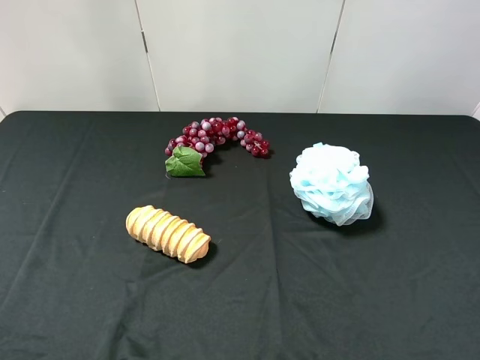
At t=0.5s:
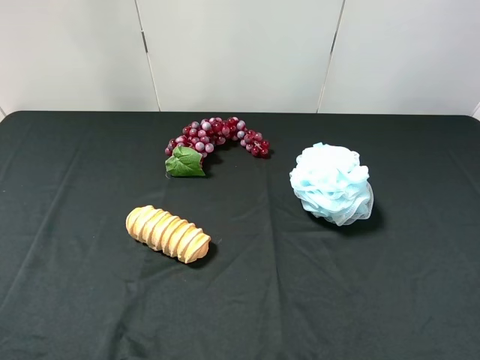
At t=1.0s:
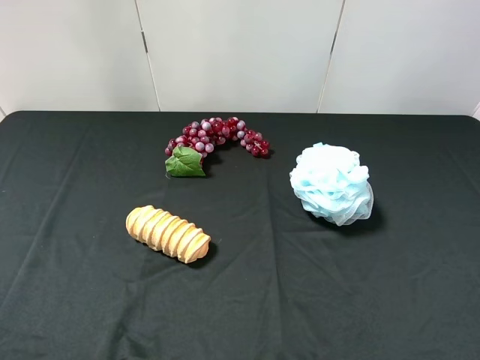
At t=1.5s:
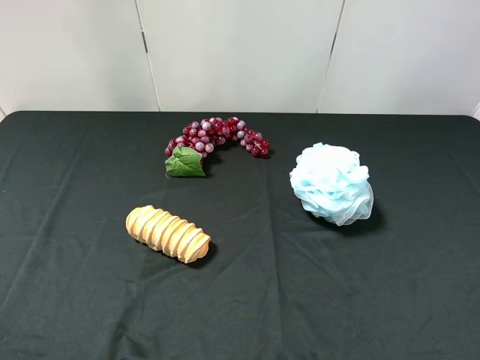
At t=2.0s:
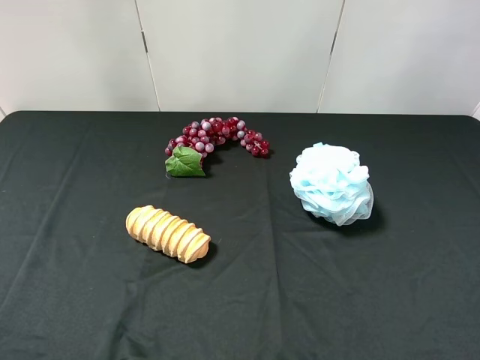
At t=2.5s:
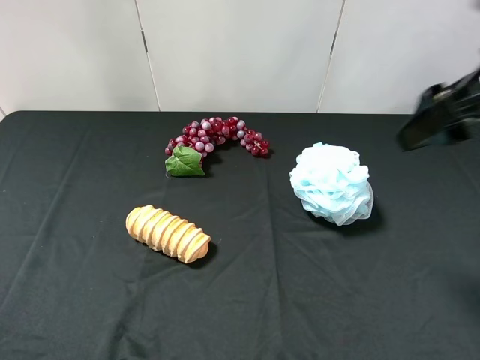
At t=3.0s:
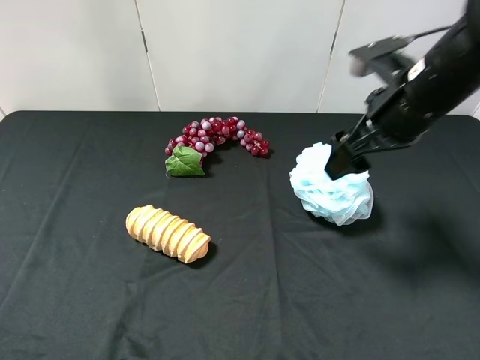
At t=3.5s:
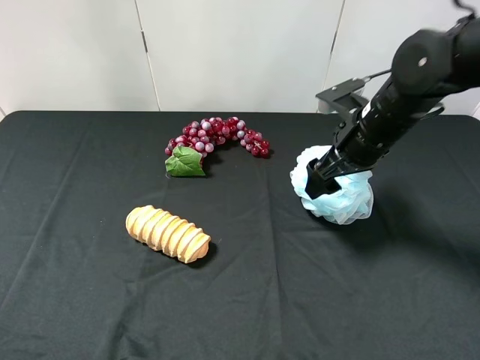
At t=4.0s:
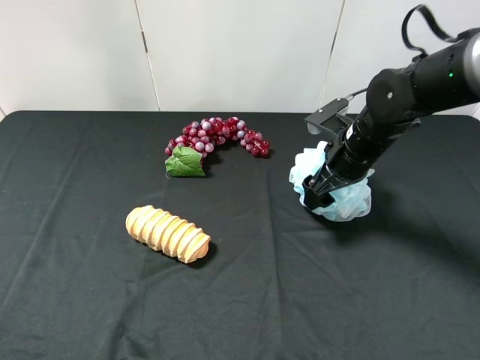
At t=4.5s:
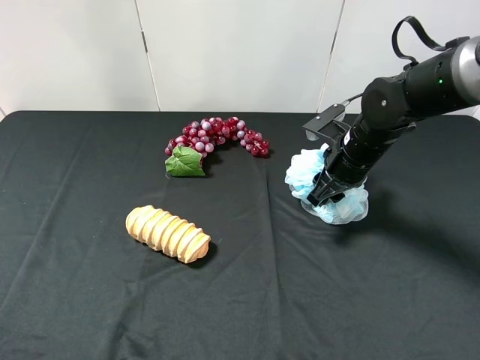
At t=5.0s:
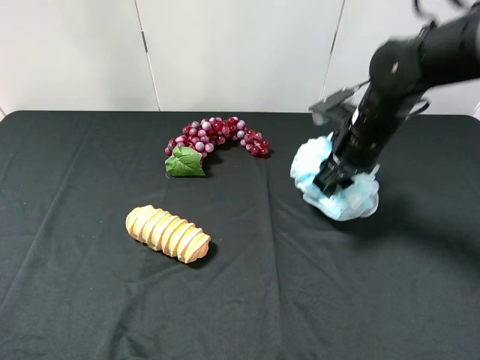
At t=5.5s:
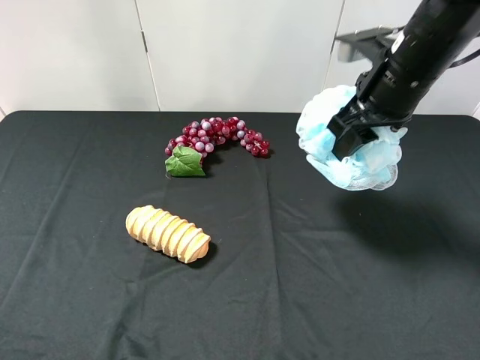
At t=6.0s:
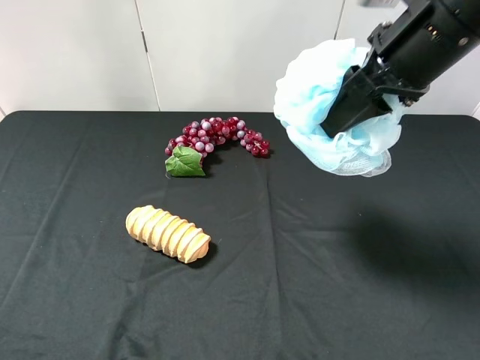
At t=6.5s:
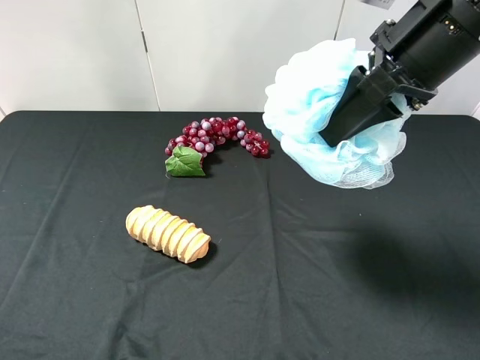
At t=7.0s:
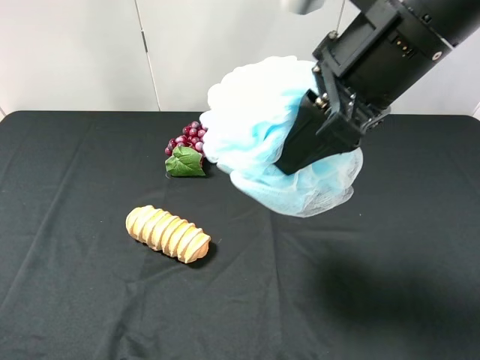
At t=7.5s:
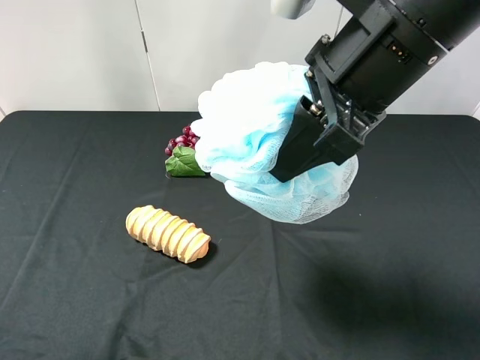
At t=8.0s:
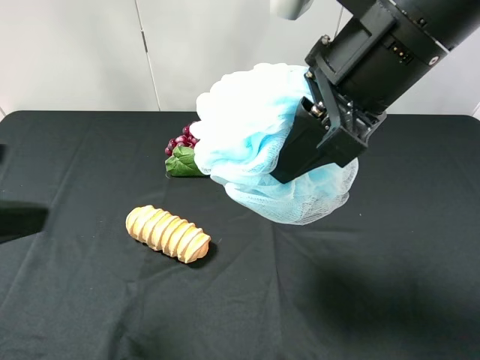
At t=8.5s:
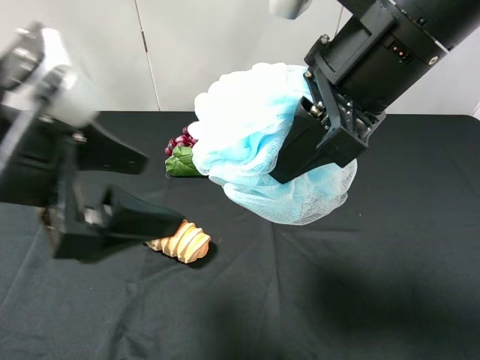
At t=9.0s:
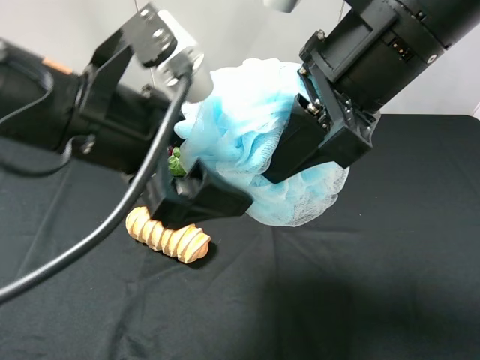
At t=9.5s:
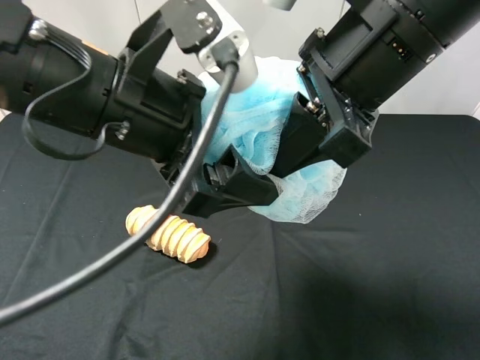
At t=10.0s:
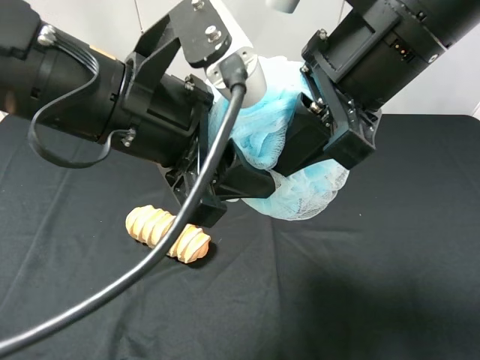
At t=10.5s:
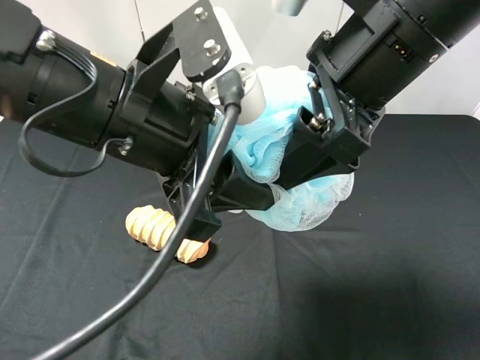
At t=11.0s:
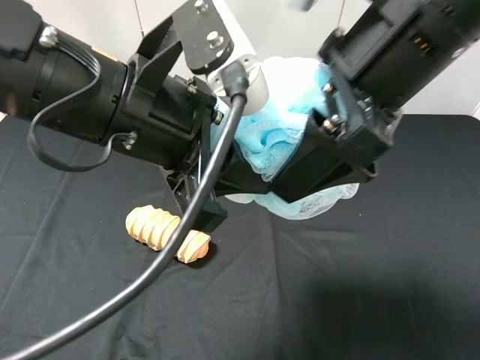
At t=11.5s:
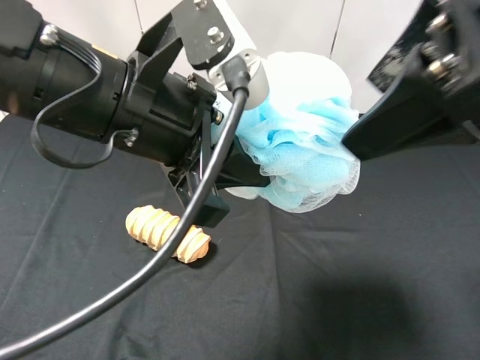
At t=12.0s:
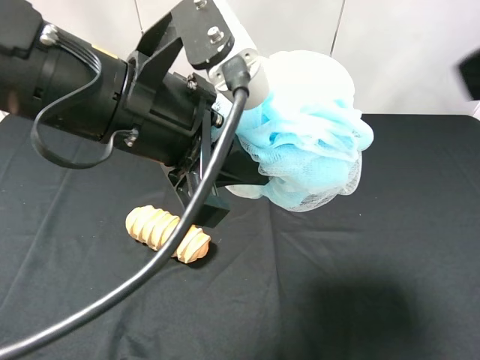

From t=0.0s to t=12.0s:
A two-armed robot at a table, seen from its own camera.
Task of the whole recording: use the right gripper to pick up the item and transfer it from the right gripper to the left gripper.
Step, from t=0.0s to t=4.5s: Use the right gripper to grab the shower sphere on the right side of the table.
Step, from t=5.0s to t=11.5s: Pass the shower sphere to the left gripper.
From t=2.0s to t=4.0s: The right gripper heads downward, forward and to the left, covering about 35 cm.
From t=4.0s to t=6.0s: The right gripper shifts roughly 20 cm upward, and closes.
From t=6.0s to t=8.0s: The right gripper is displaced to the left and backward by some 10 cm, while the left gripper moves forward and to the right, approximately 15 cm.
From t=8.0s to t=10.0s: The left gripper heads to the right and forward, covering about 20 cm, and closes up.
From t=10.0s to t=12.0s: The right gripper goes roughly 20 cm to the right, backward and upward, and opens up.

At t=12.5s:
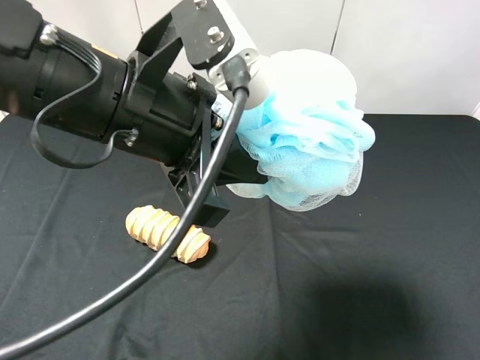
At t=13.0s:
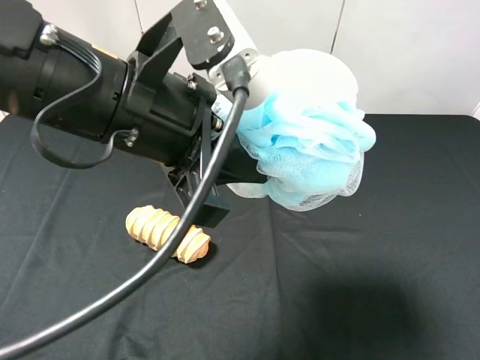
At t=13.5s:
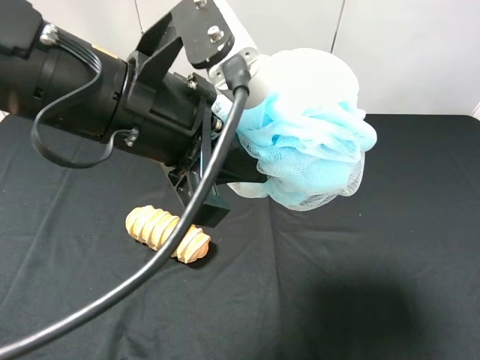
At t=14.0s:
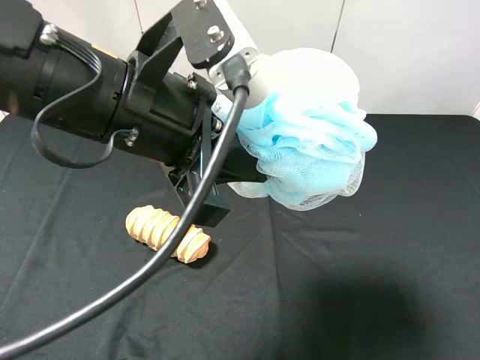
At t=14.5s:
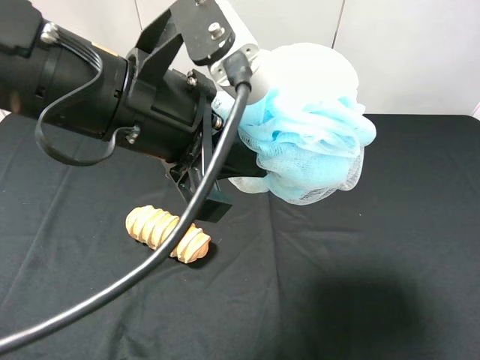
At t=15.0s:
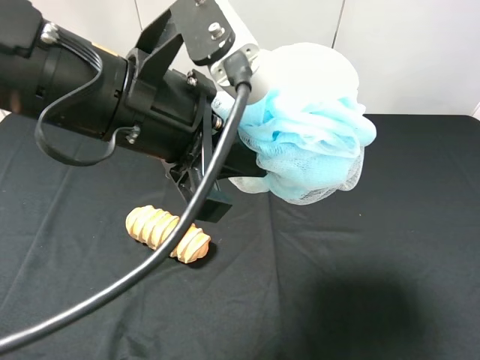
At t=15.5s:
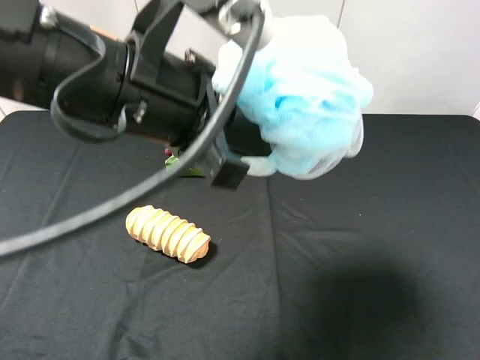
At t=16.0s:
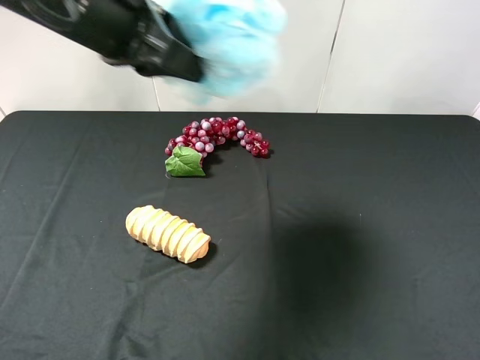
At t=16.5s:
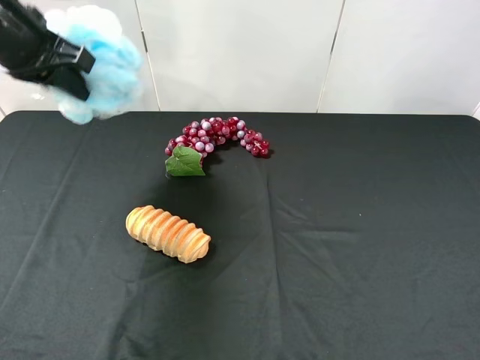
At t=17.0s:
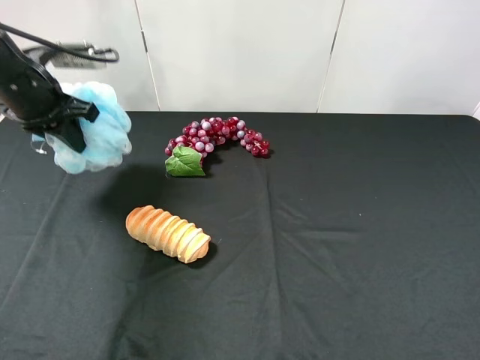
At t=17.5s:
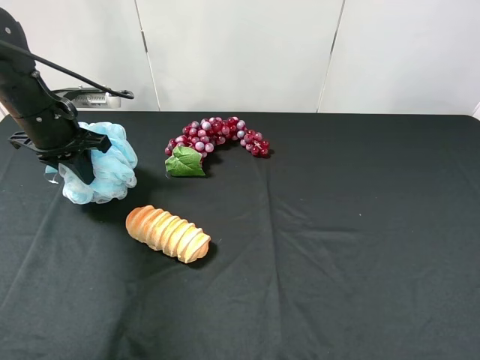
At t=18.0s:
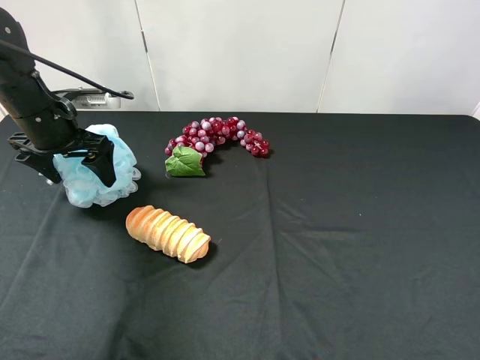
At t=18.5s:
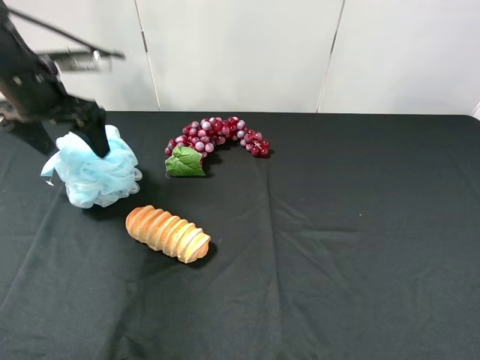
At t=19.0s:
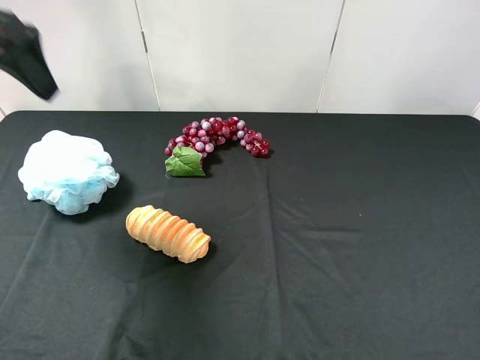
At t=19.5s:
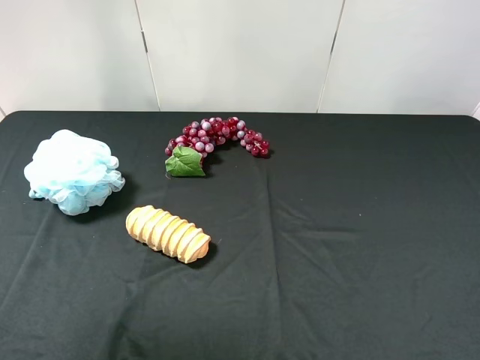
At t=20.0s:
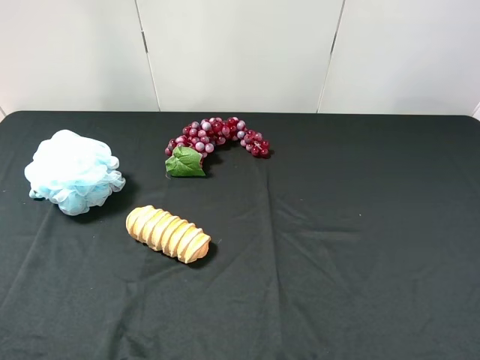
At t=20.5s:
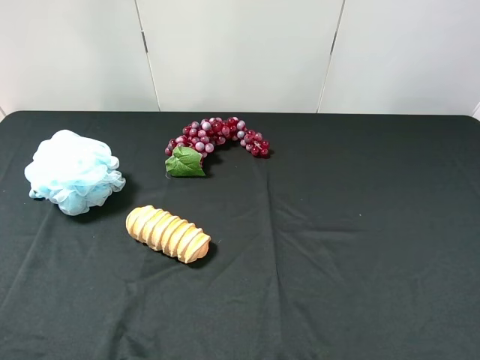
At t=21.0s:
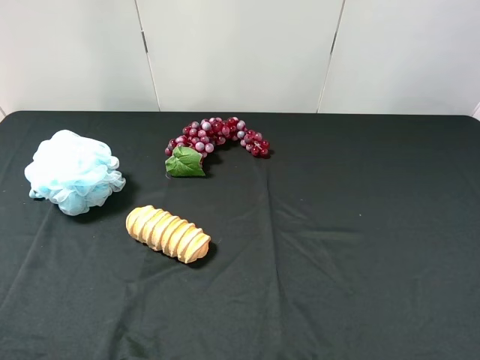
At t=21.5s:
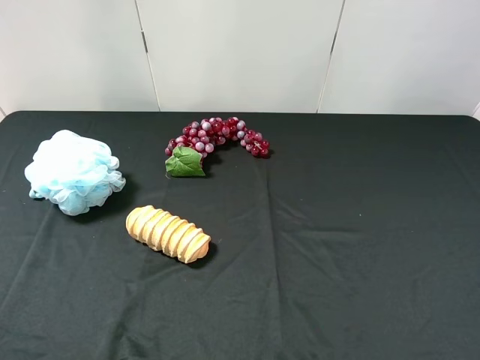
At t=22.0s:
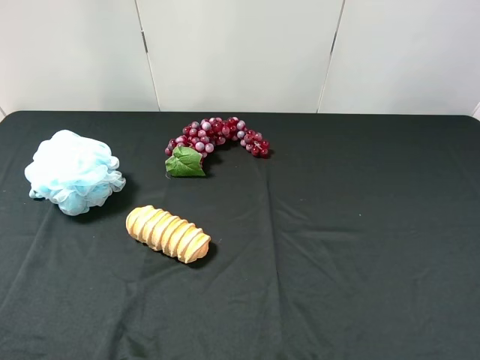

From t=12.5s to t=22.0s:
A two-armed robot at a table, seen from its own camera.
Task of the whole recording: use the right gripper to pick up the item and transfer it from the right gripper to the left gripper.
Step, from t=12.5s to t=18.5s: The left gripper places shower sphere on the left side of the table.
From t=12.5s to t=14.5s: The right gripper goes approximately 5 cm downward.
From t=14.5s to t=16.5s: The left gripper moves to the left and forward, roughly 20 cm.
From t=16.5s to t=18.0s: The left gripper travels downward by about 15 cm, and opens.
From t=18.0s to t=20.0s: The left gripper is displaced backward and upward by some 40 cm.
